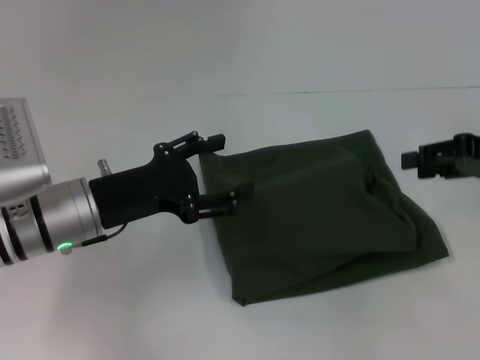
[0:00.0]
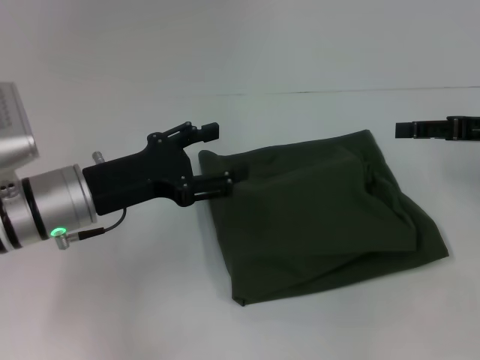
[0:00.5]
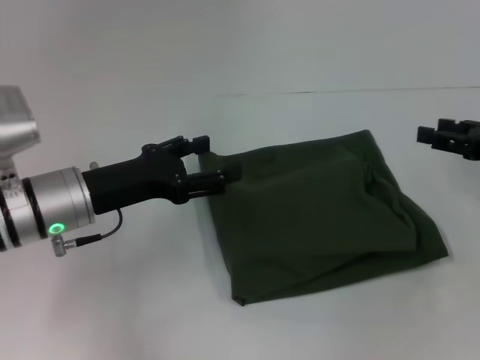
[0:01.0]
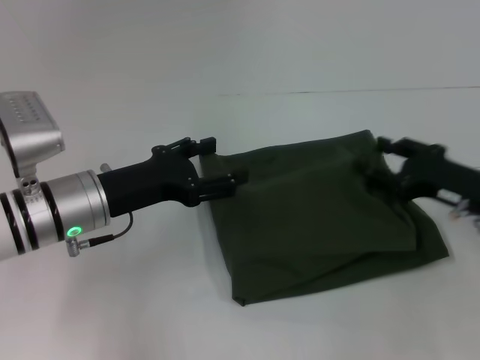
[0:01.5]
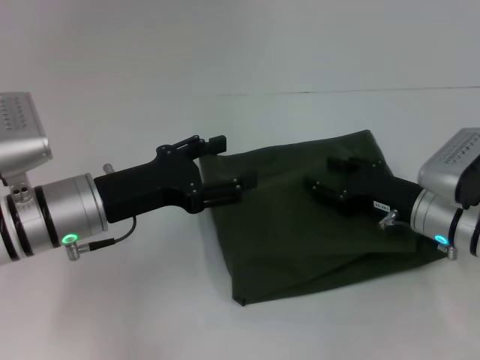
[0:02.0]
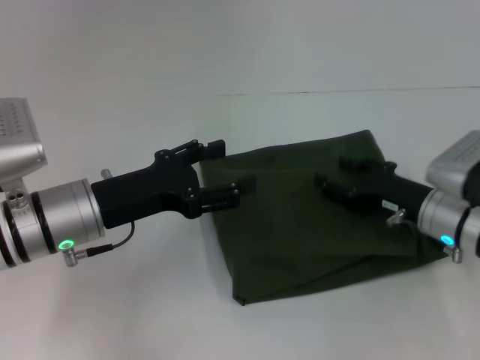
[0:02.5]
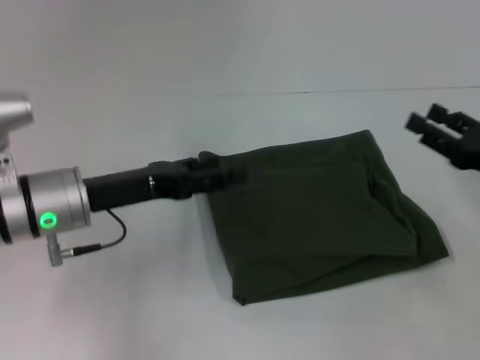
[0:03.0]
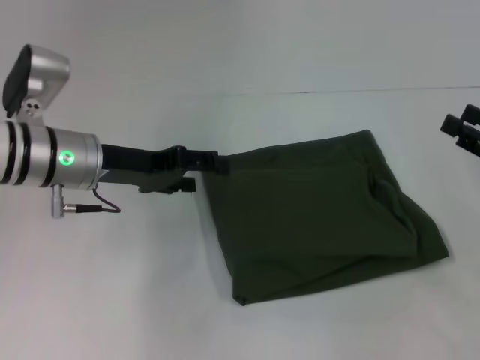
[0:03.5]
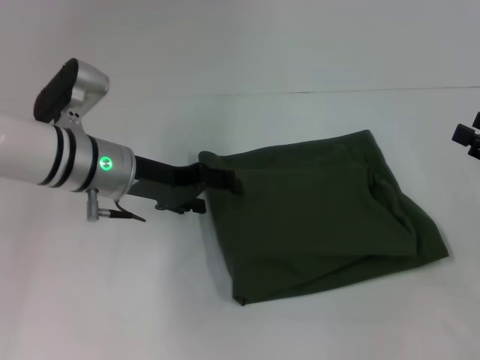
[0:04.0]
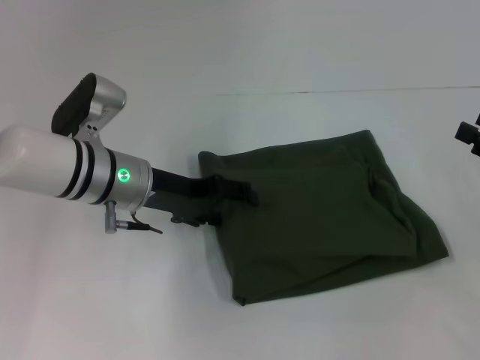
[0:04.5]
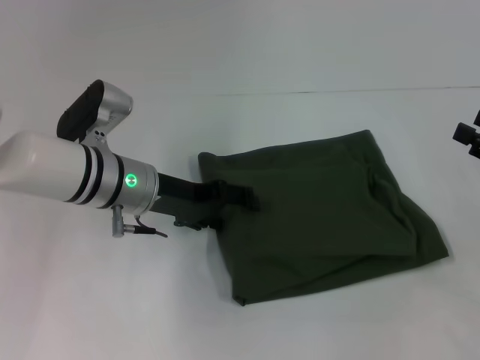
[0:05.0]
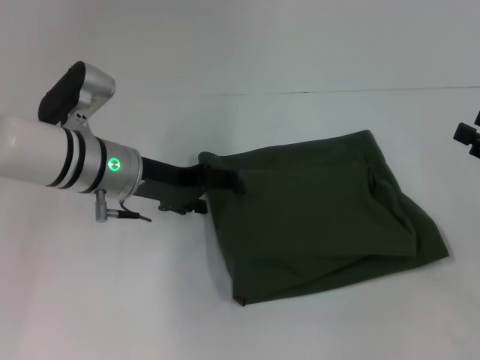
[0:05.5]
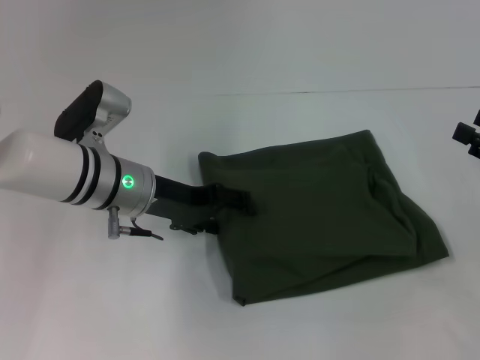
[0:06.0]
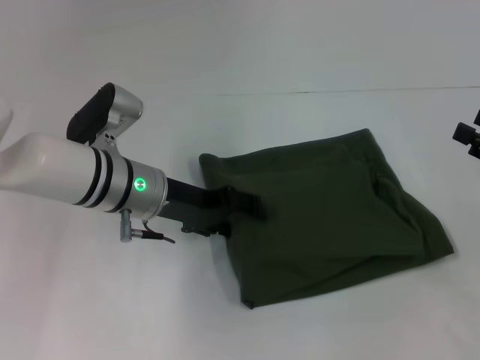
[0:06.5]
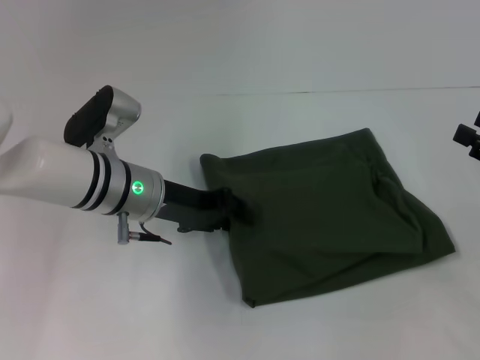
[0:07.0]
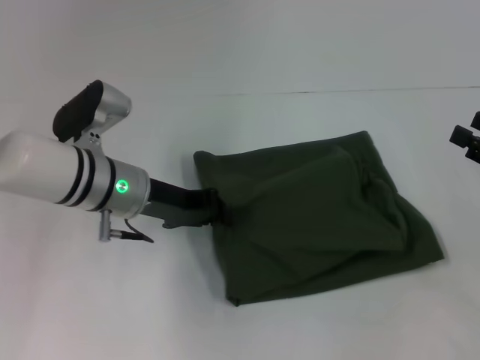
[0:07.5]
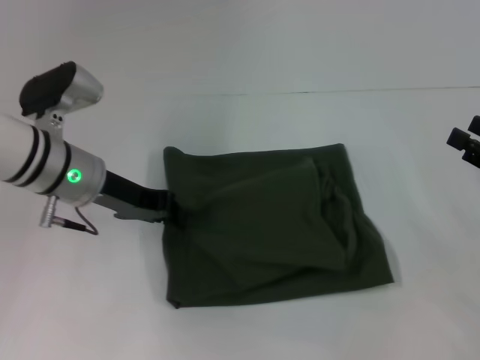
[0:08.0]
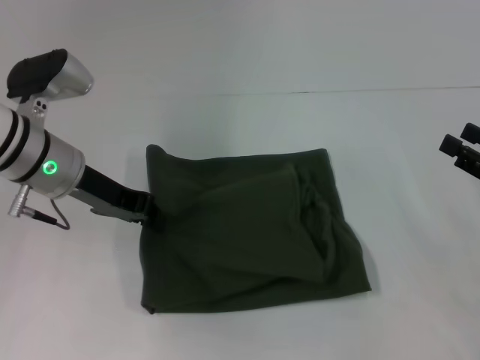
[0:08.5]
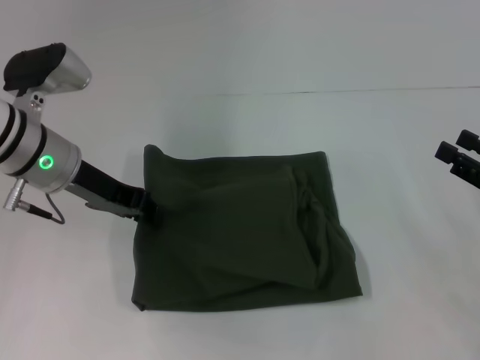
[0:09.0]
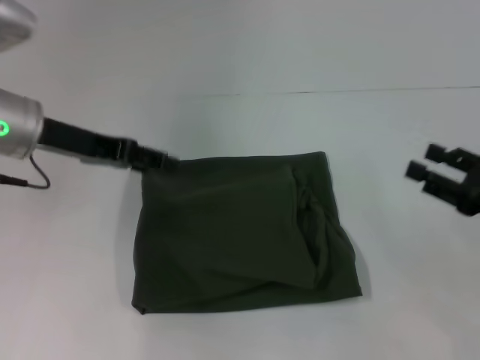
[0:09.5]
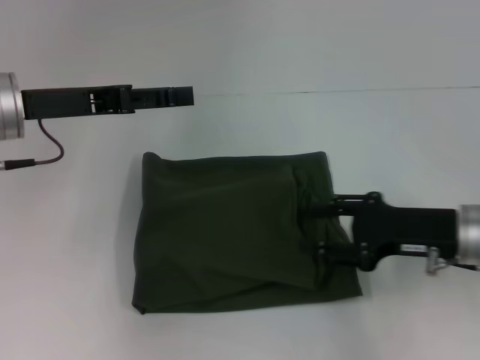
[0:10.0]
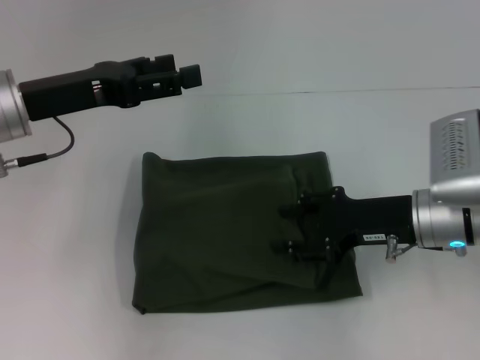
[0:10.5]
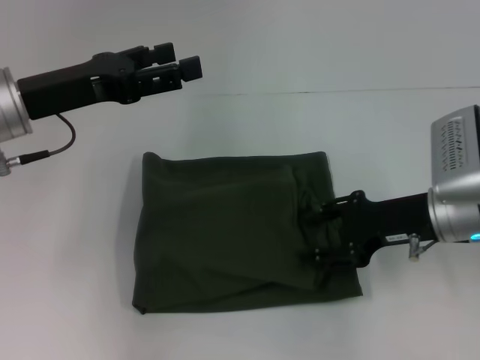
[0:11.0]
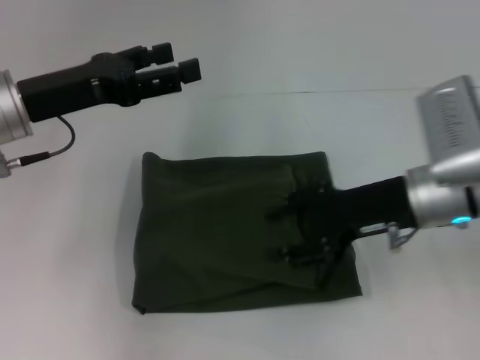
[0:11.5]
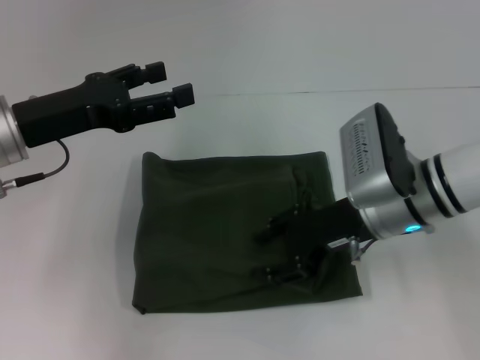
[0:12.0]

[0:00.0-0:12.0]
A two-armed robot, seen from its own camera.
0:00.0 to 0:02.0: The right gripper shifts some 15 cm downward and to the left, and opens its fingers.
0:02.0 to 0:04.0: The right gripper is displaced to the right and upward by some 15 cm, while the left gripper heads forward, covering approximately 5 cm.
0:04.0 to 0:06.0: The grippers stay close to where they were, moving slightly.
0:06.0 to 0:08.0: The left gripper closes.
0:08.0 to 0:10.0: The left gripper goes approximately 10 cm upward and to the left, and opens up; the right gripper is displaced to the left by about 10 cm.
0:10.0 to 0:12.0: The right gripper shifts approximately 10 cm to the left.

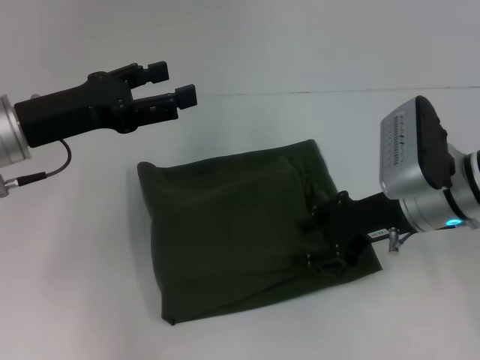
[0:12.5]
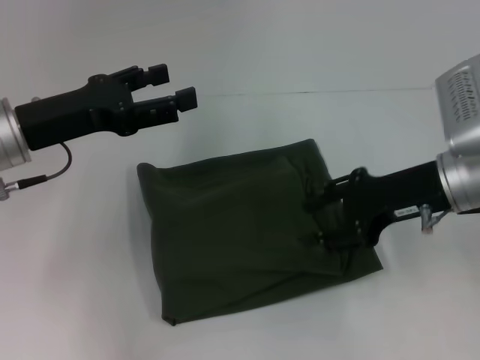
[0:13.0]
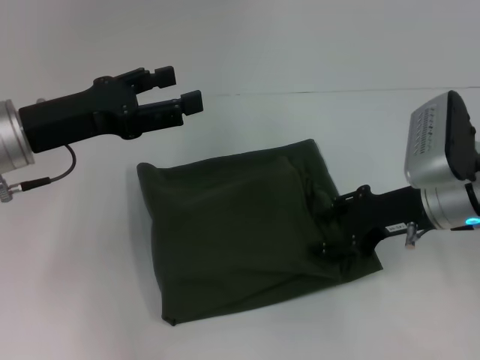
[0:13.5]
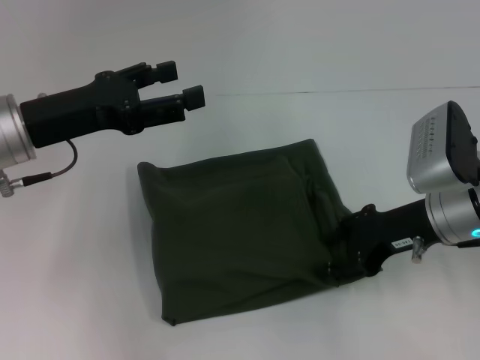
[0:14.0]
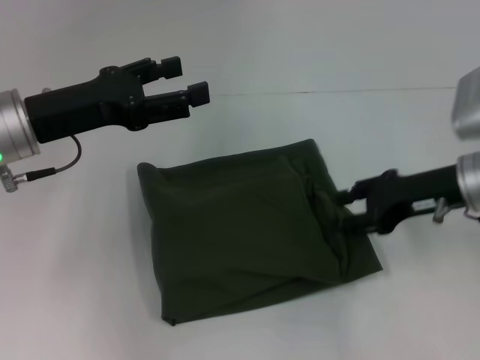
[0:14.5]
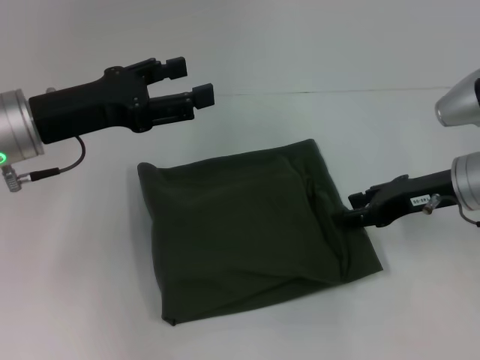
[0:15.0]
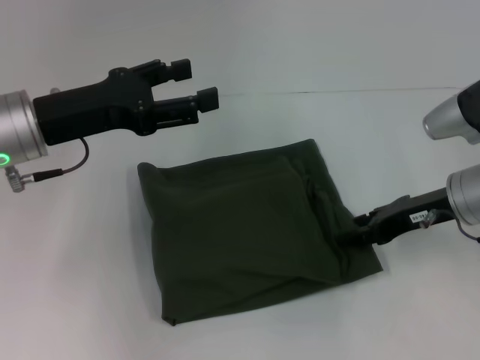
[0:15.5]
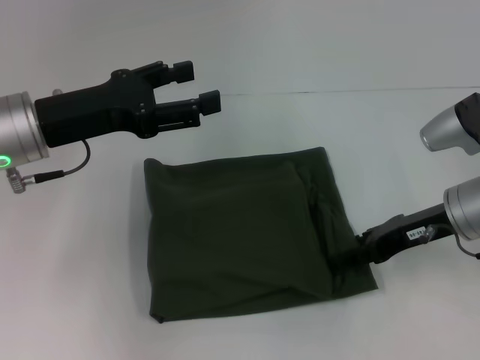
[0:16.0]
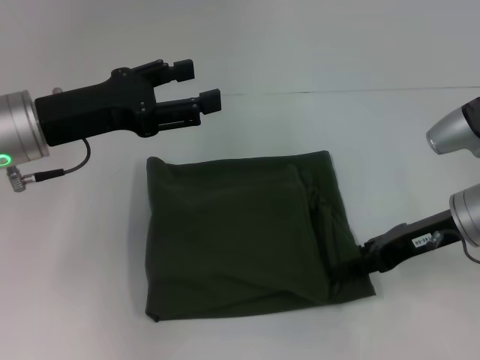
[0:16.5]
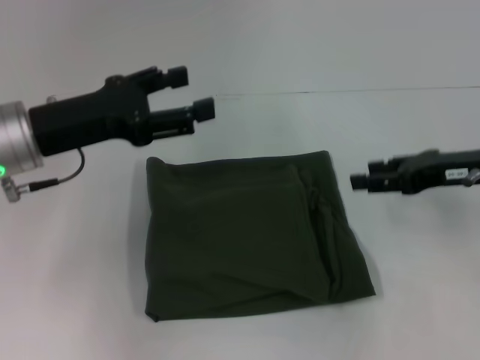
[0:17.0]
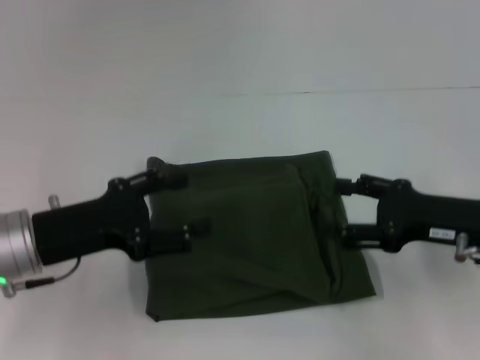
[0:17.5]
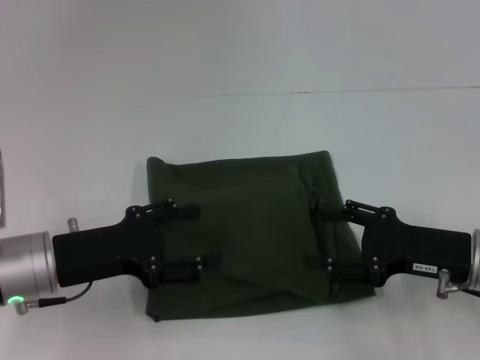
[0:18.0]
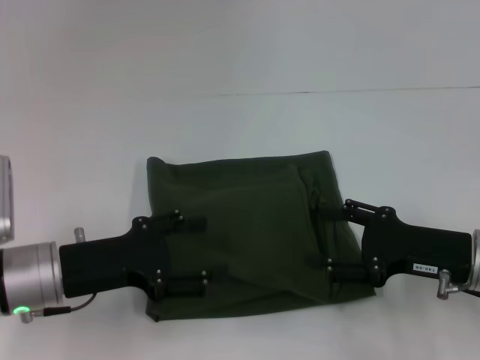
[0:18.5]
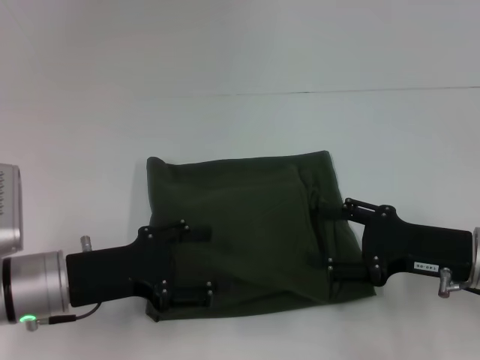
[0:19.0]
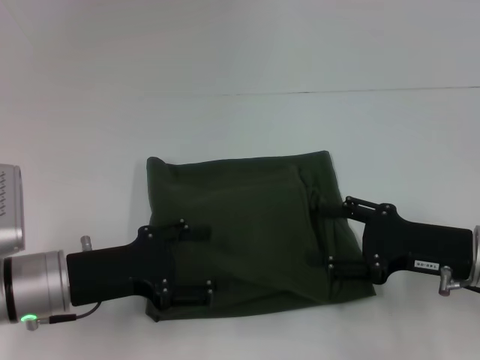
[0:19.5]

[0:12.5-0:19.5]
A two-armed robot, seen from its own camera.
0:12.5 to 0:14.5: The right gripper changes place by about 5 cm.
0:16.0 to 0:17.5: The left gripper shifts some 10 cm downward and backward; the right gripper shifts roughly 5 cm backward.
0:17.5 to 0:19.5: The grippers make only small movements.

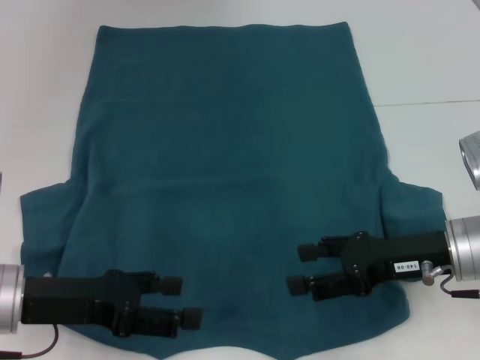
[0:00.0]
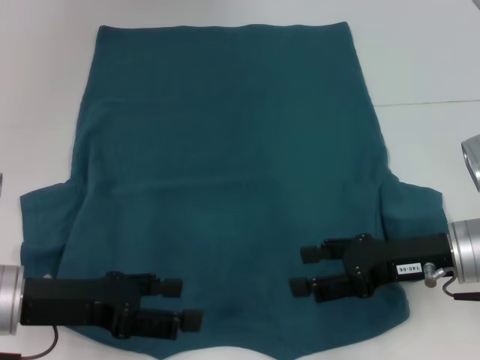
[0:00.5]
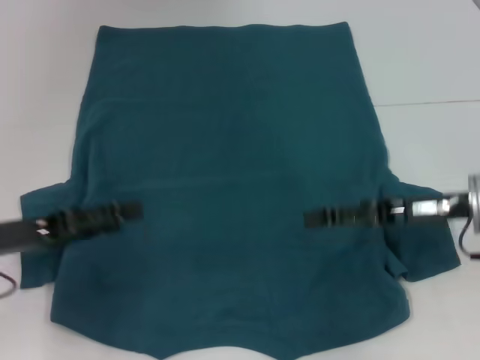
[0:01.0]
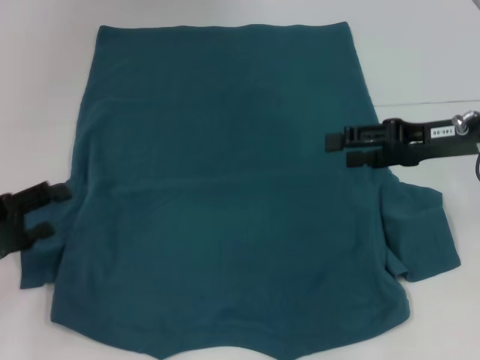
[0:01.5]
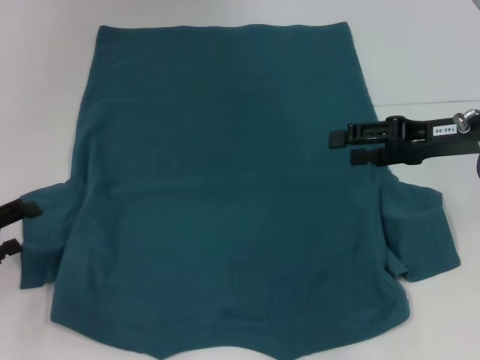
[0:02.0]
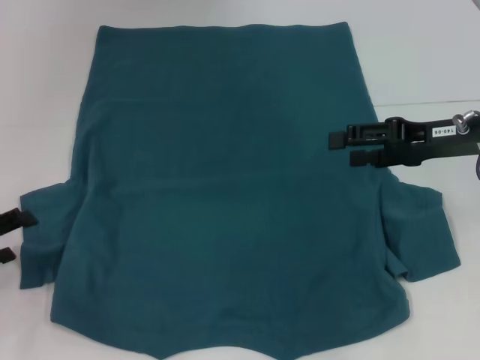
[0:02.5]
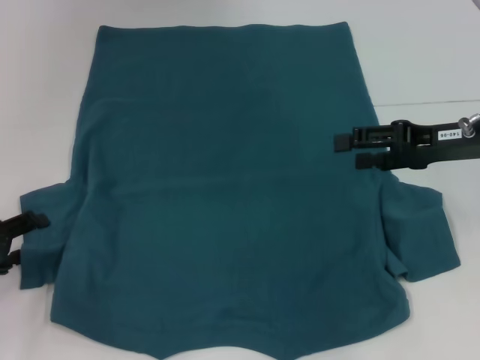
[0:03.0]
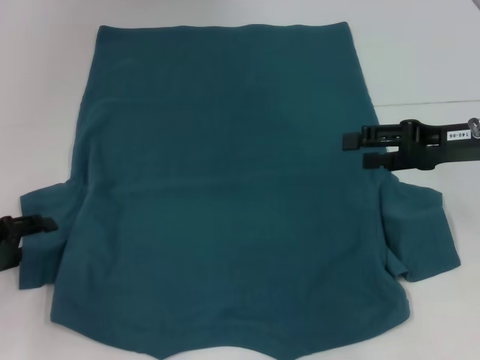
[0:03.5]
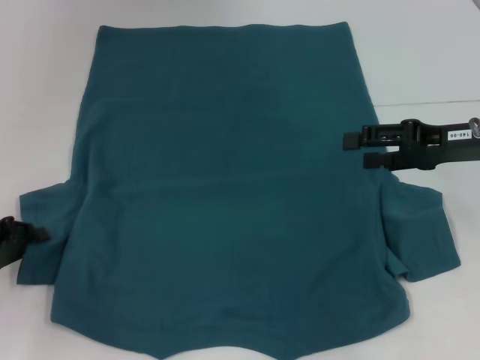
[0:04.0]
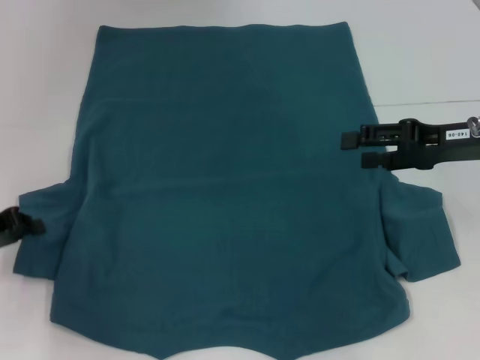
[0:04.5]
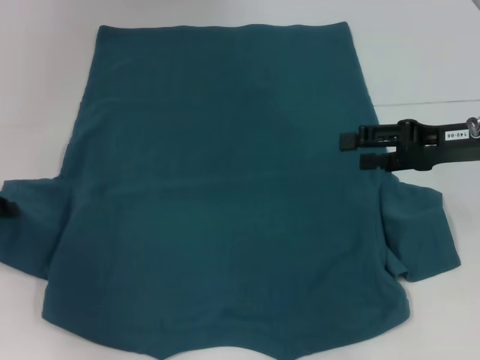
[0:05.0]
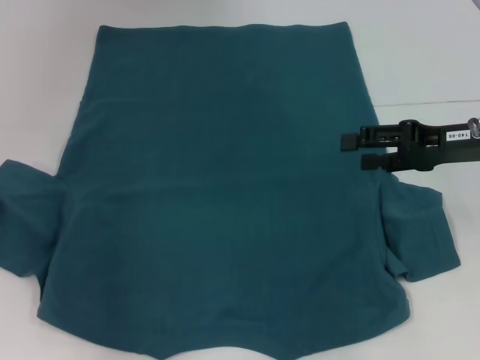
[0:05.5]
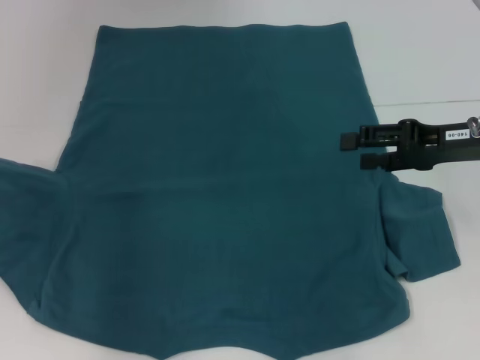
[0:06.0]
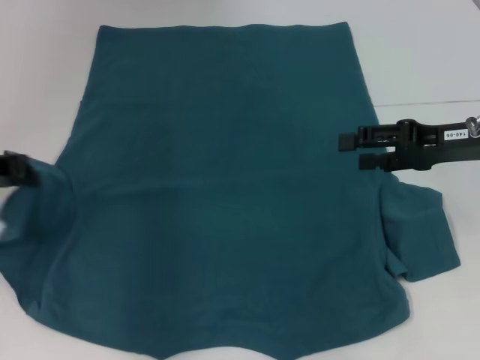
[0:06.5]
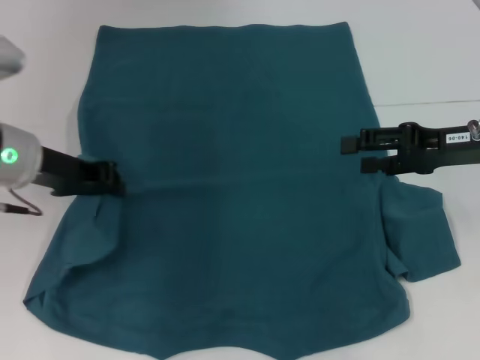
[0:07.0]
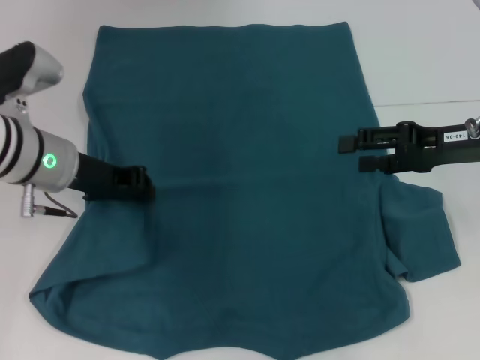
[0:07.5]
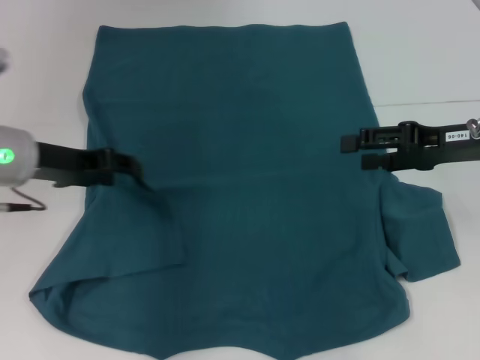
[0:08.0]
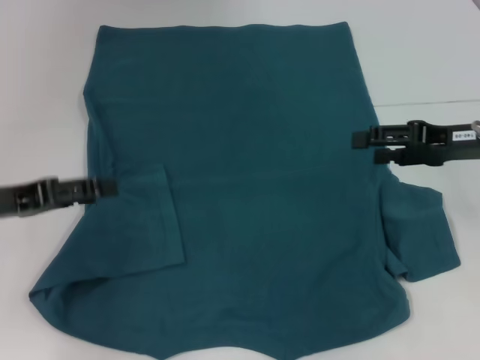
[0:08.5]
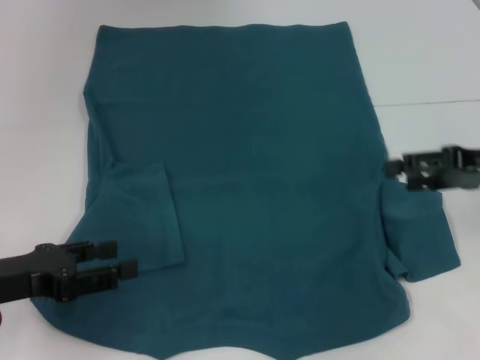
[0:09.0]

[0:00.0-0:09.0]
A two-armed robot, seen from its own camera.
Step, 0:00.0 to 0:08.0: Fold the bottom left sleeve with your left hand.
0:00.0 to 0:02.0: The right gripper is displaced forward and upward by about 10 cm, while the left gripper travels to the left by approximately 10 cm.
0:02.0 to 0:04.5: The left gripper closes up.
0:04.5 to 0:07.0: The left gripper is displaced to the right, upward and forward by some 15 cm.
0:07.0 to 0:09.0: The left gripper is displaced backward, downward and to the left by about 15 cm, and opens.
